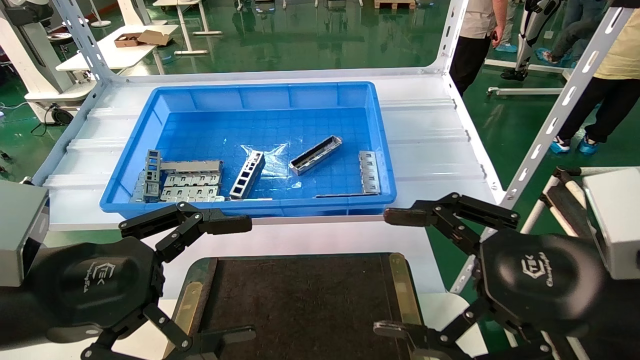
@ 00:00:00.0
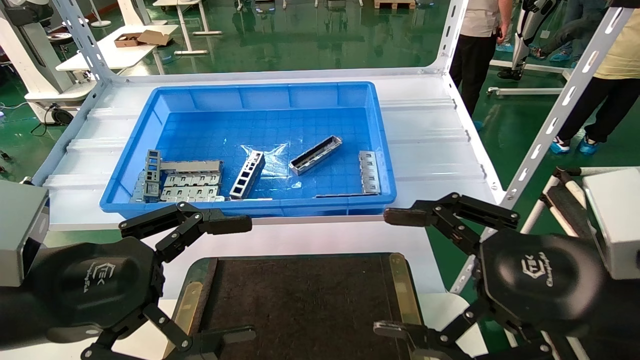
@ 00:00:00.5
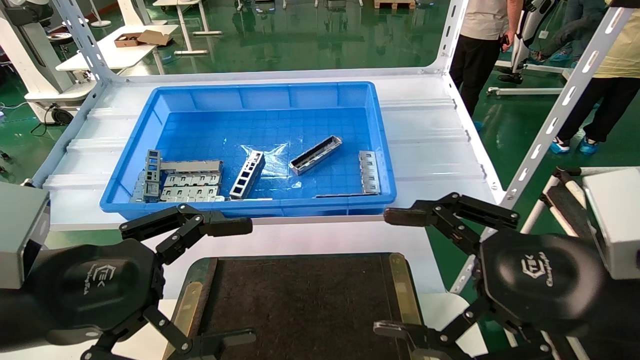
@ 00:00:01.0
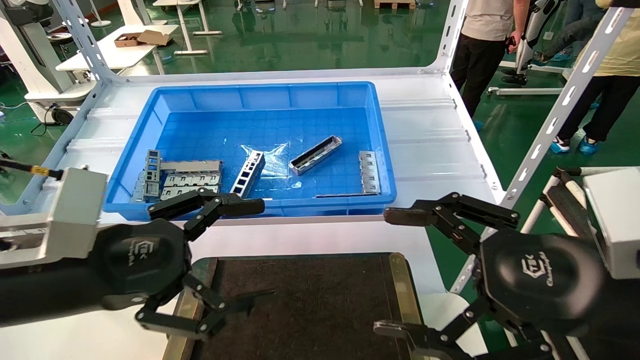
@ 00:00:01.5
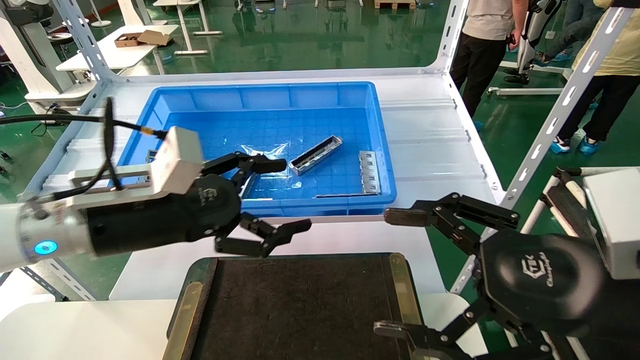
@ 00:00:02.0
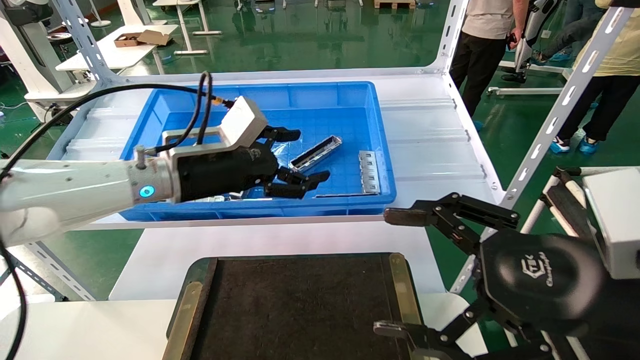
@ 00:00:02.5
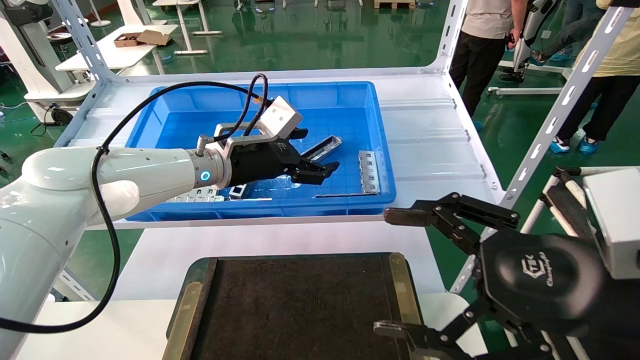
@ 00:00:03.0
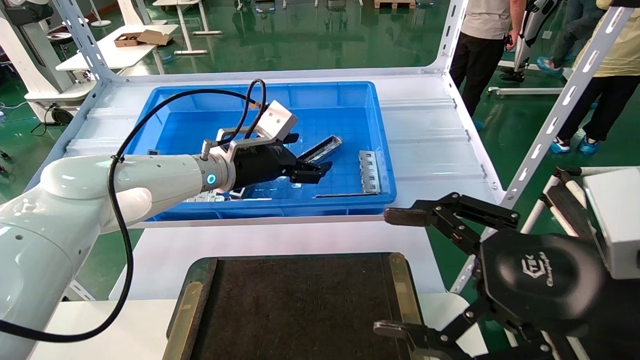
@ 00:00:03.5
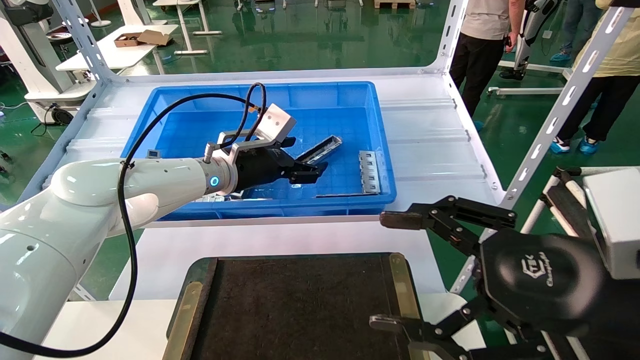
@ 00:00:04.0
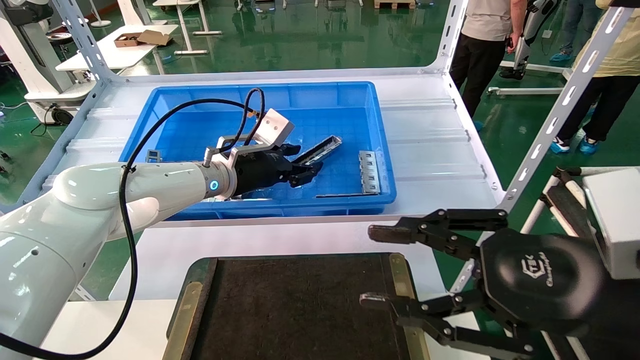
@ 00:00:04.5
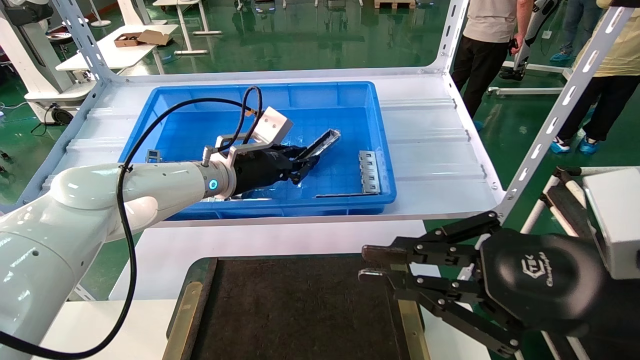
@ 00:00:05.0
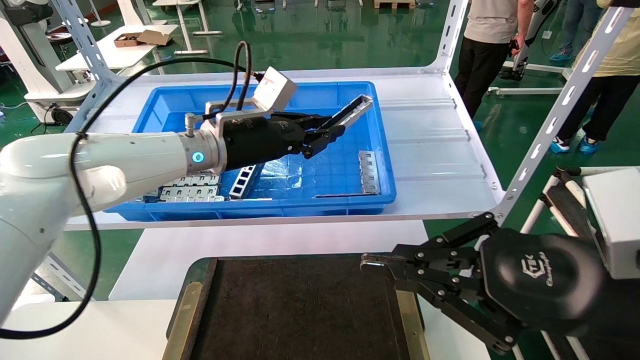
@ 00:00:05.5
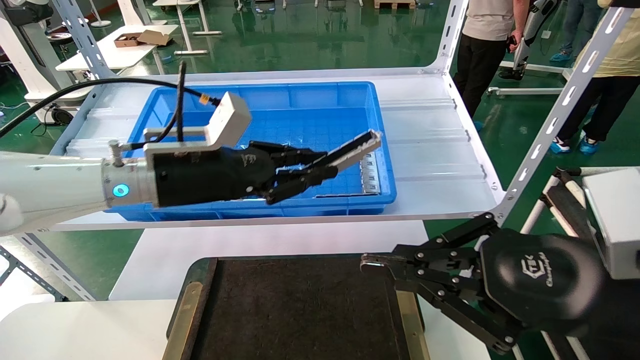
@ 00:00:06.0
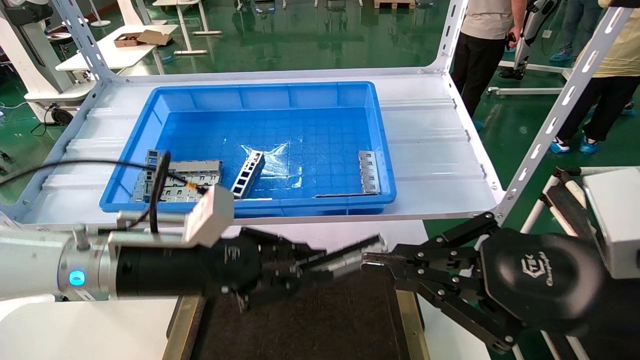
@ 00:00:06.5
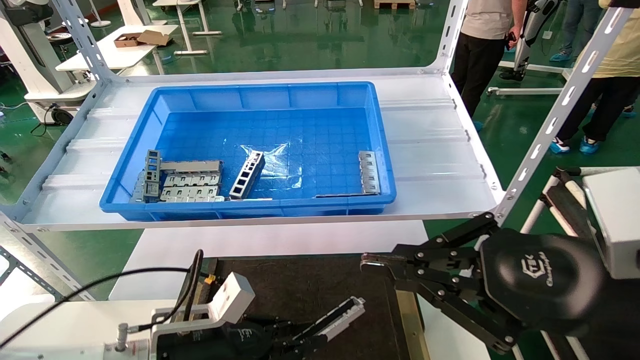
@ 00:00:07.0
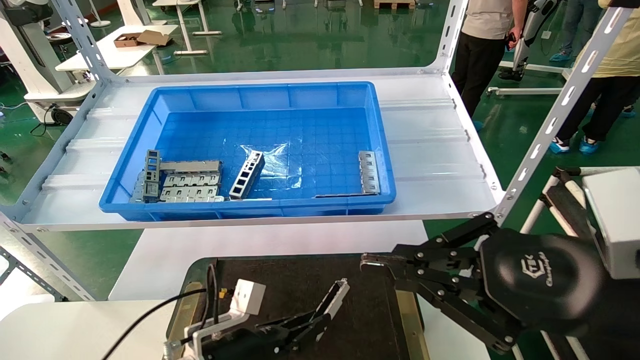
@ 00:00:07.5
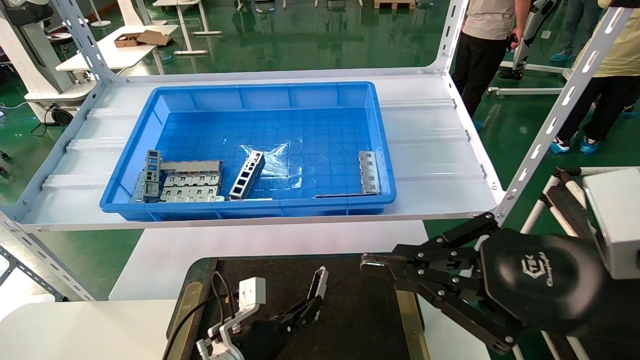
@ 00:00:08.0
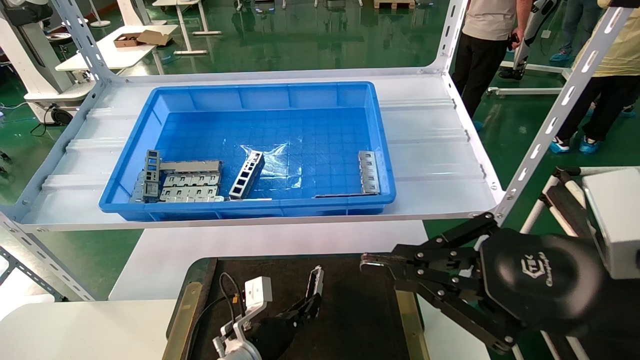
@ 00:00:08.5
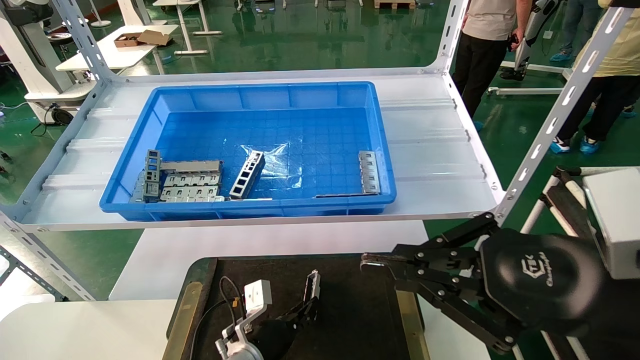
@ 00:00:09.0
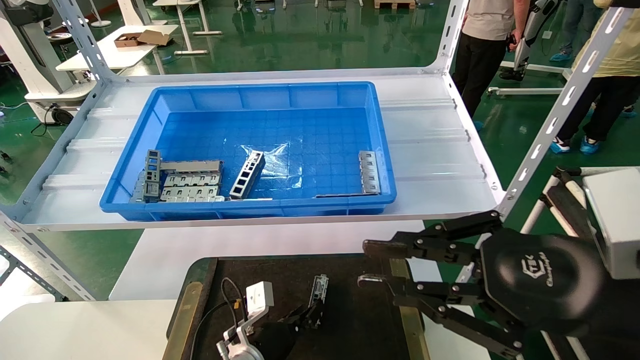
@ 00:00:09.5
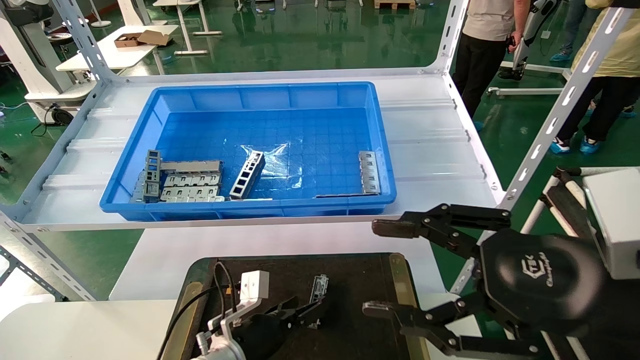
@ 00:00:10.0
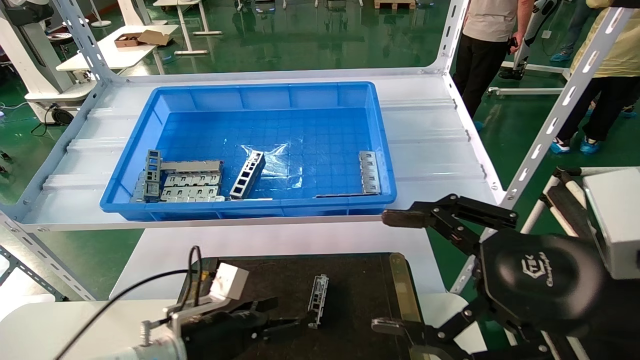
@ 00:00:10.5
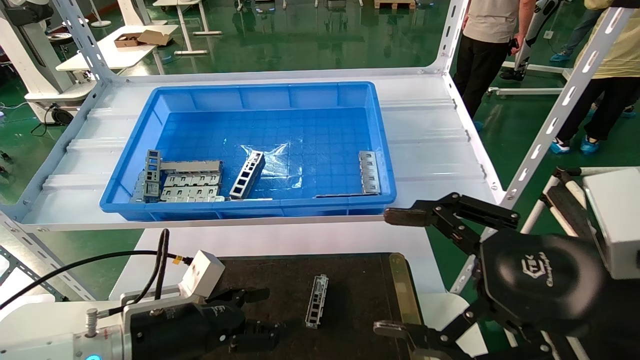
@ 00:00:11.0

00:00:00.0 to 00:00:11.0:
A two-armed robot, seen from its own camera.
Task of the whole recording: Grasp the part with one hand and place it on the black container.
Step, 00:00:02.0 to 00:00:05.0: Pick up the front USB bracket from the feeding area.
Step, 00:00:05.5 to 00:00:09.5: Place the front USB bracket into the box.
00:00:00.0 to 00:00:02.0: The left gripper heads forward, covering approximately 10 cm.
00:00:02.0 to 00:00:03.5: The left gripper shifts some 20 cm forward and to the right.
00:00:03.5 to 00:00:05.5: The left gripper closes; the right gripper closes.
00:00:05.5 to 00:00:07.5: The left gripper shifts about 30 cm downward and backward.
00:00:07.5 to 00:00:09.0: The left gripper travels forward and downward by about 10 cm.
00:00:09.0 to 00:00:11.0: The left gripper is displaced upward, to the left and backward by some 20 cm, and opens, while the right gripper opens its fingers.
